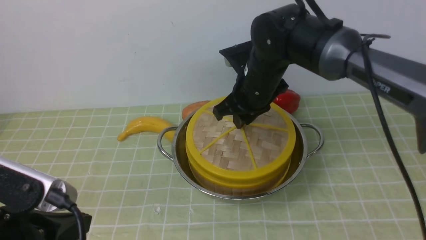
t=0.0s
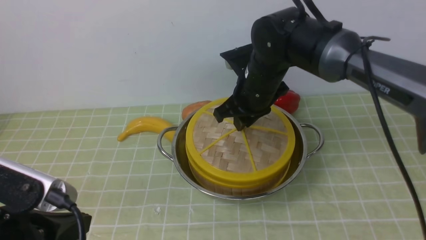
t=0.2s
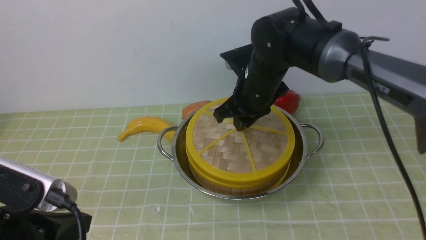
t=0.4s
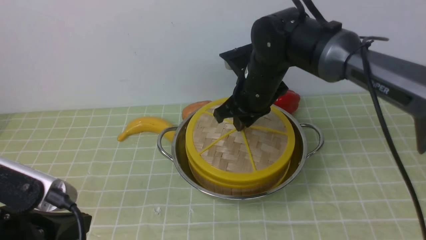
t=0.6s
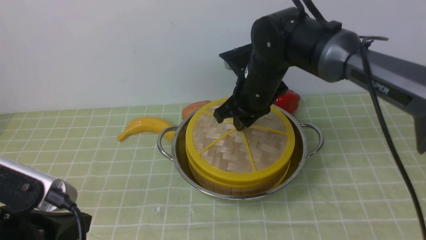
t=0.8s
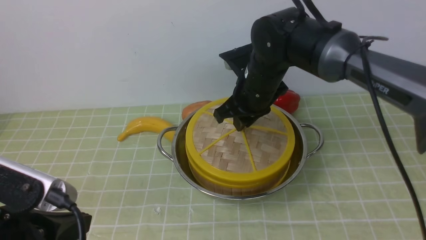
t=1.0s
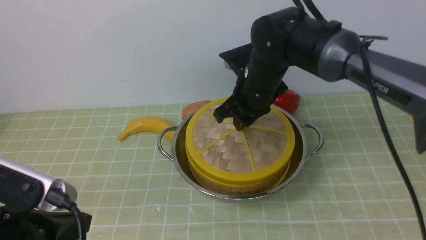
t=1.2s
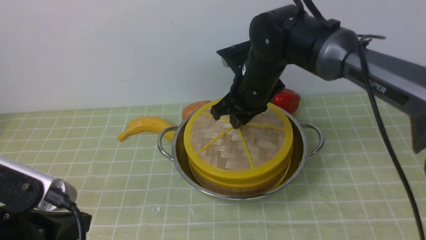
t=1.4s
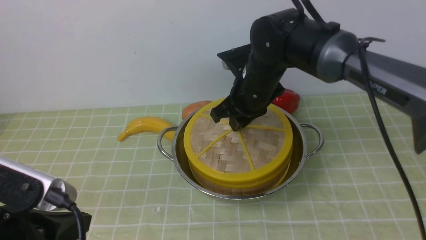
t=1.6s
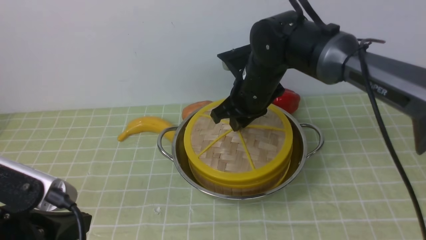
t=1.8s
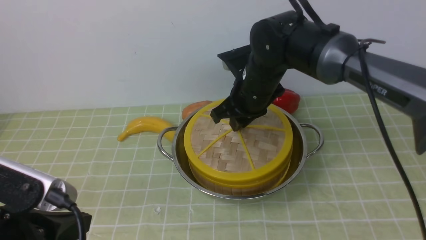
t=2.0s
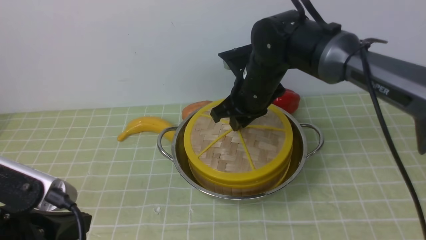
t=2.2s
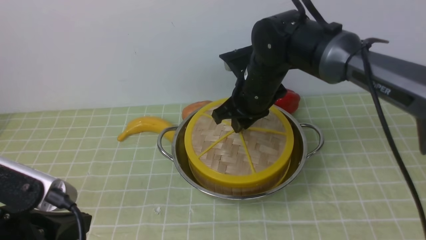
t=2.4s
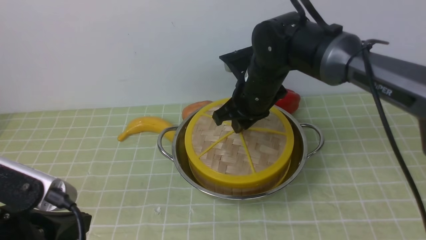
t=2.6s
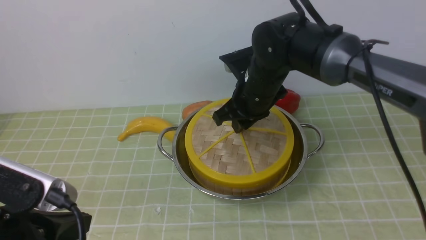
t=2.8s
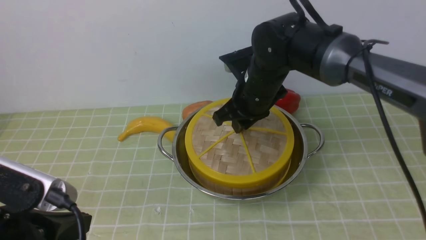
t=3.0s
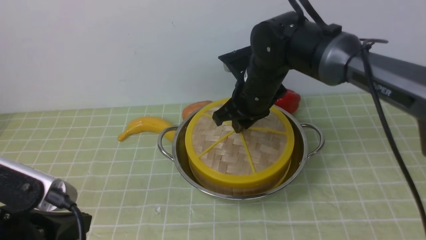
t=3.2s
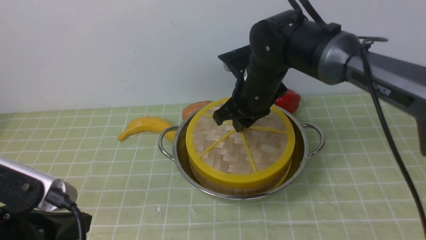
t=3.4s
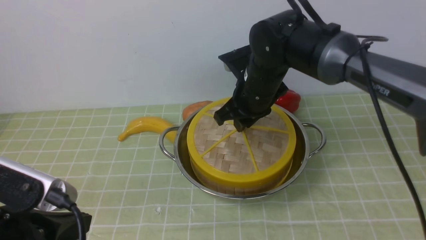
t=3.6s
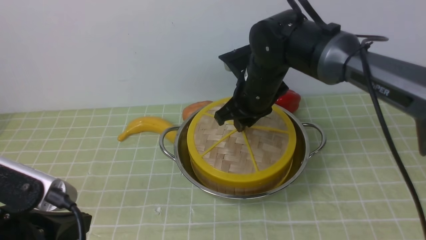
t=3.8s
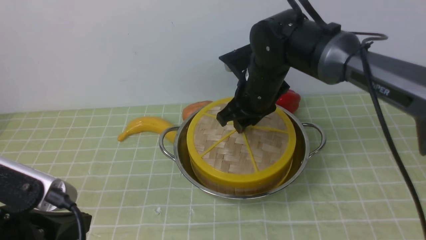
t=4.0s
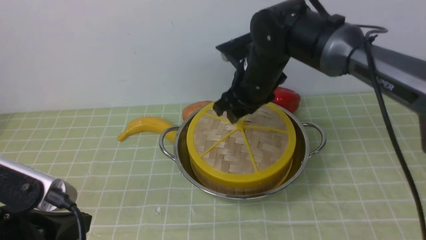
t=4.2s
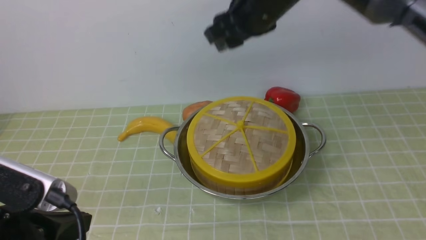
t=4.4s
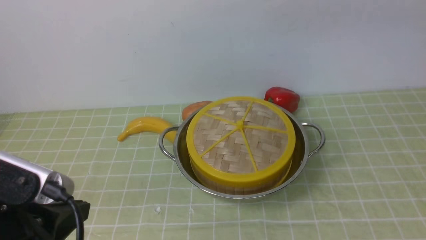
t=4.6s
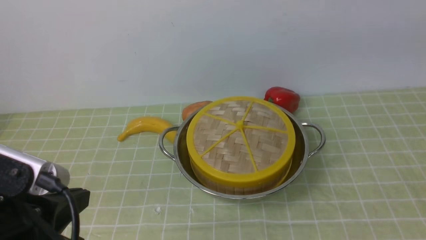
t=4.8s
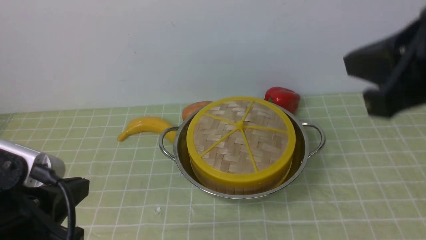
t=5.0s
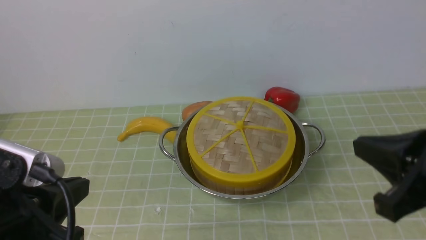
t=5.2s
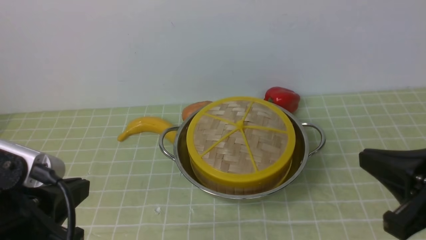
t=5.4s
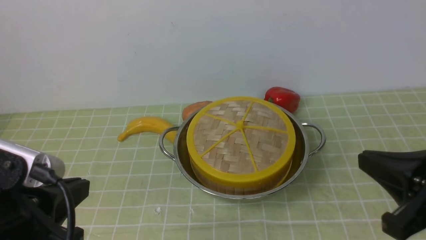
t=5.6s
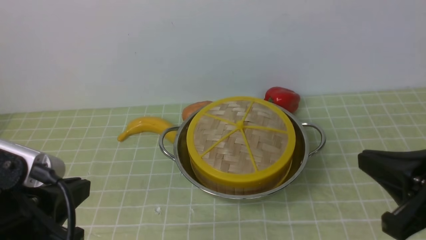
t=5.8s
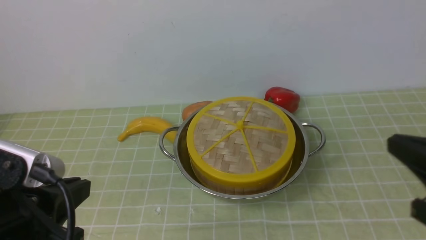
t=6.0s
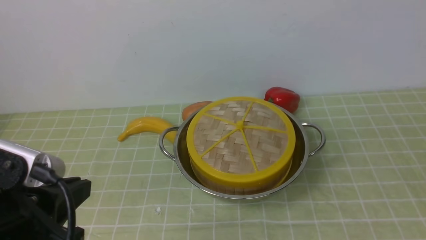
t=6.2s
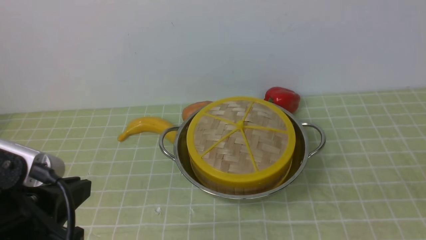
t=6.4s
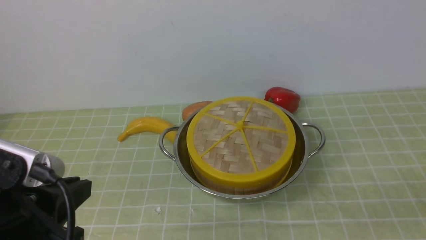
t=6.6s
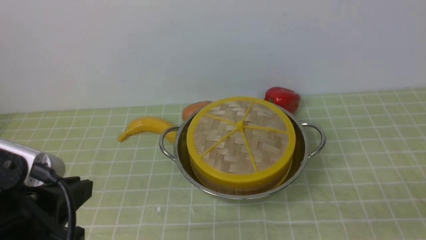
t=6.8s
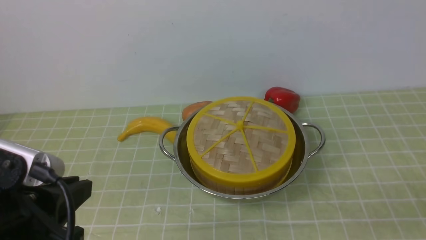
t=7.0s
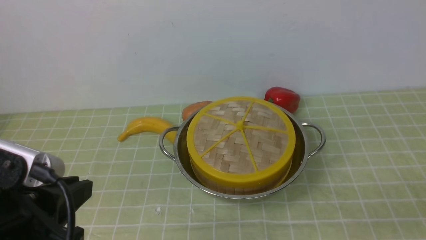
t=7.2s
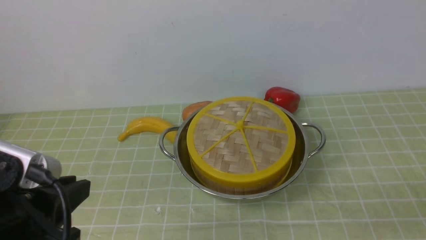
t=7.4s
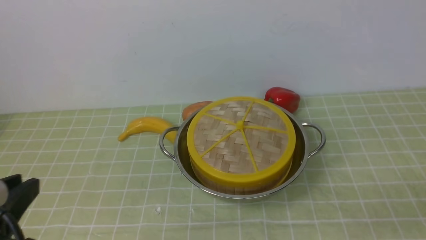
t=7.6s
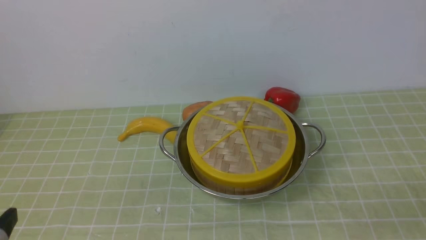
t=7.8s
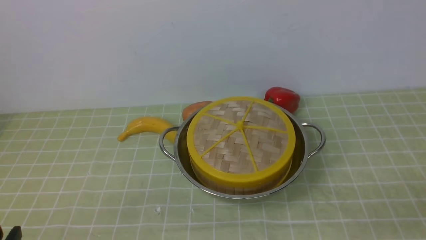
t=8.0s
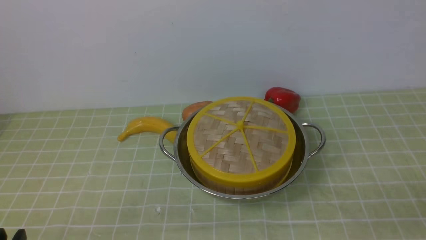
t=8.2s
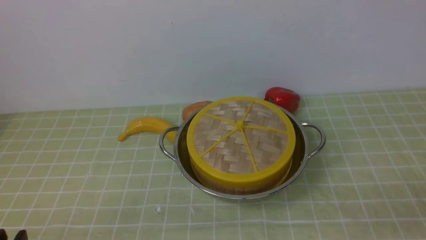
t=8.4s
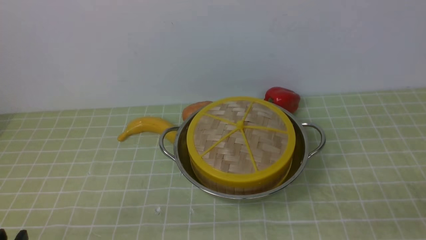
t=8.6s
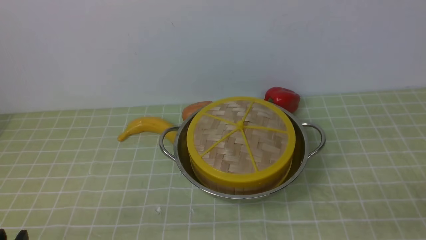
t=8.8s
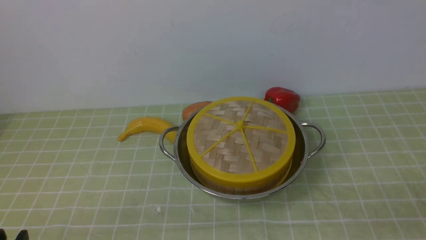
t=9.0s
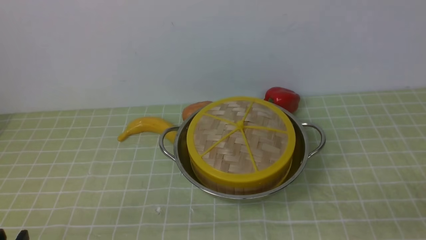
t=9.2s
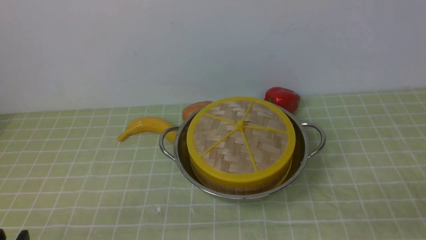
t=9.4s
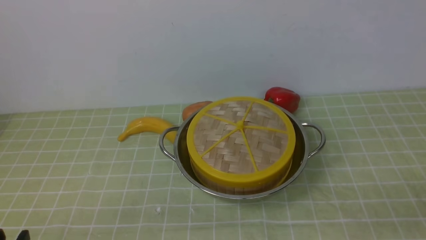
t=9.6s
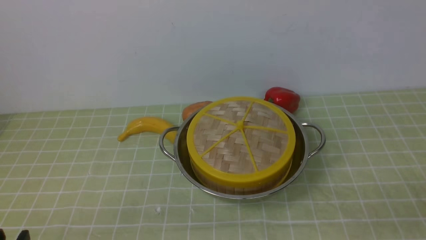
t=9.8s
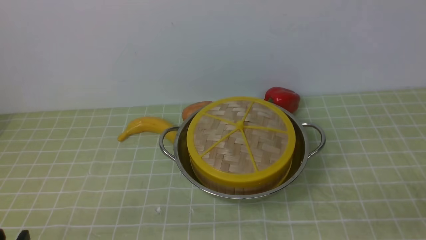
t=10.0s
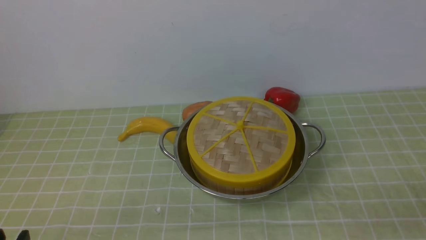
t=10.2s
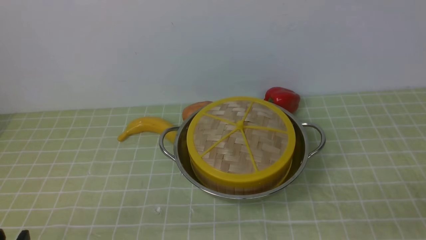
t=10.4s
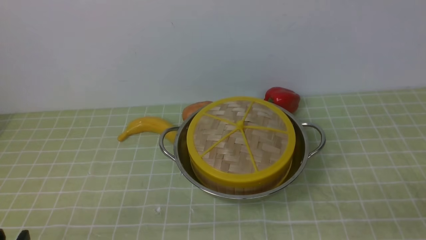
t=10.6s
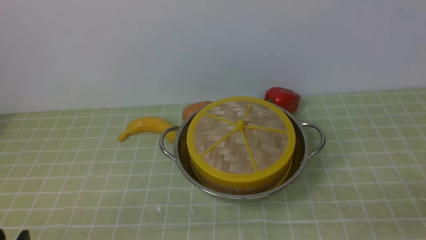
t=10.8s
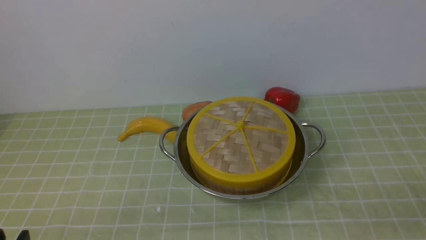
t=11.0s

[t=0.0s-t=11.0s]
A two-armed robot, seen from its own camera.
Task of the whole recording: place the steamer in the pot on the green tablecloth, and put the lid on the steamer.
Step, t=0.0s to t=4.6s: use the right arm to place the steamer lid on the steamer.
t=0.0s to t=3.2s: Neither gripper changes place.
t=3.2s to t=4.8s: The right gripper shifts some 30 cm upward and backward, and opens, then closes once more.
t=6.2s to t=7.8s: The left gripper ends up some 5 cm from where it was.
t=9.4s to t=11.0s: Both grippers stay put.

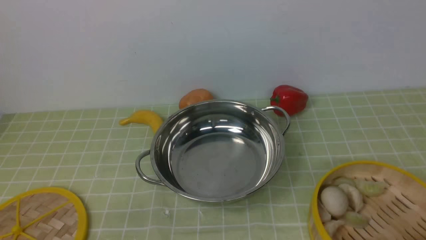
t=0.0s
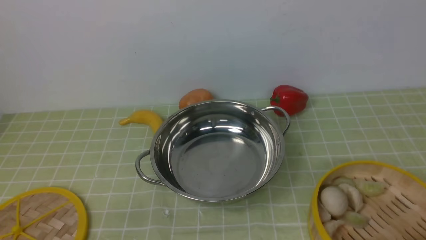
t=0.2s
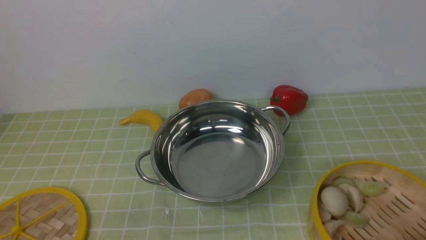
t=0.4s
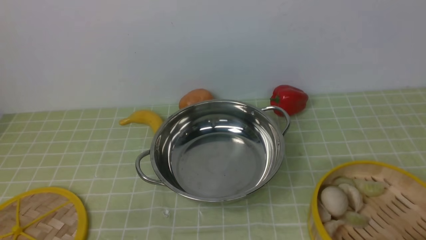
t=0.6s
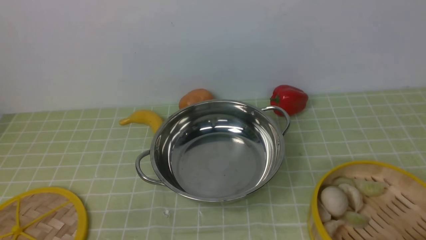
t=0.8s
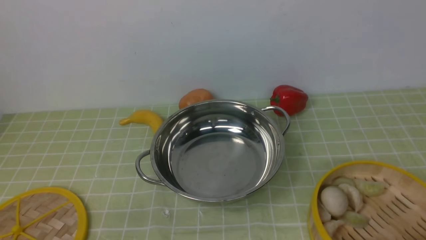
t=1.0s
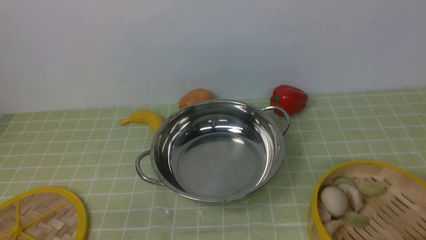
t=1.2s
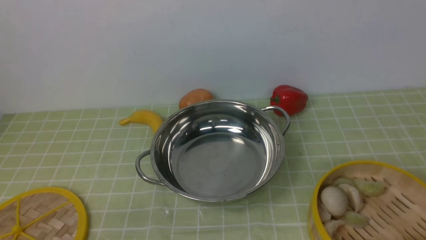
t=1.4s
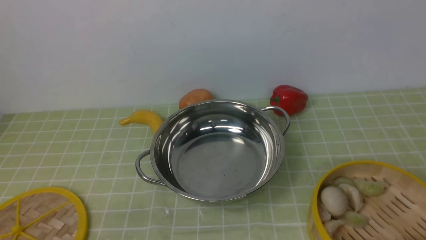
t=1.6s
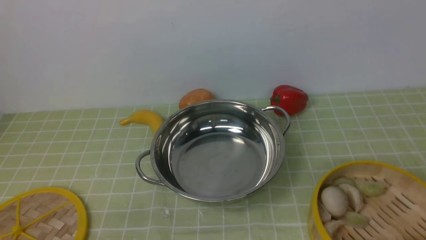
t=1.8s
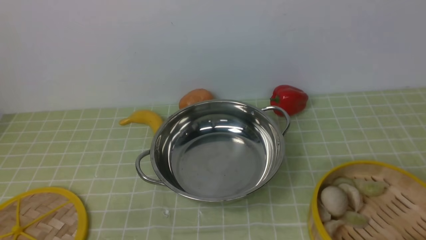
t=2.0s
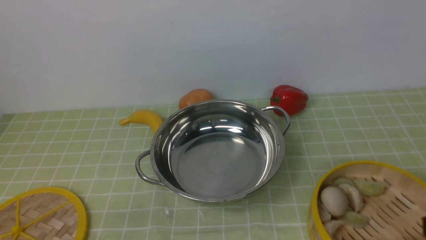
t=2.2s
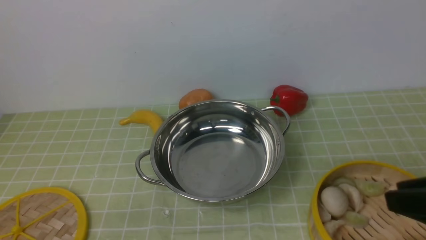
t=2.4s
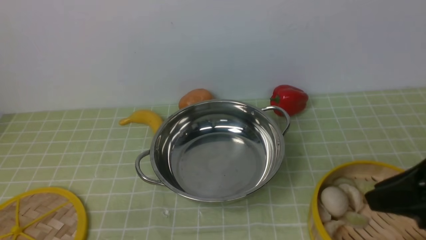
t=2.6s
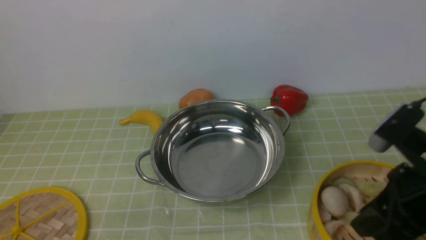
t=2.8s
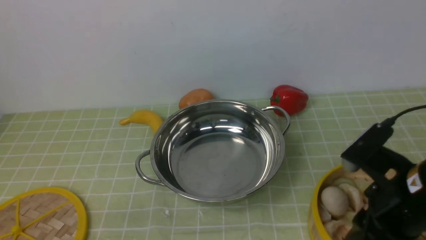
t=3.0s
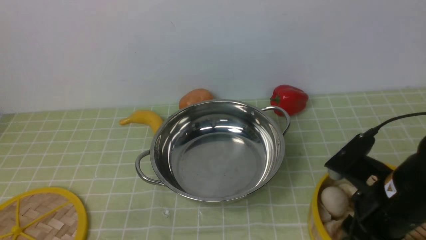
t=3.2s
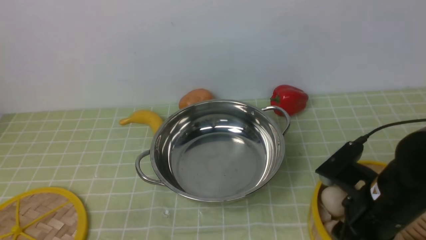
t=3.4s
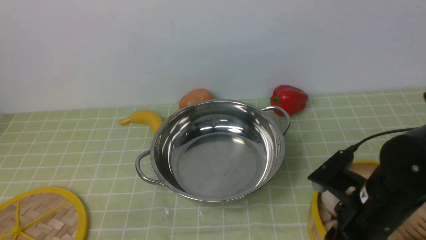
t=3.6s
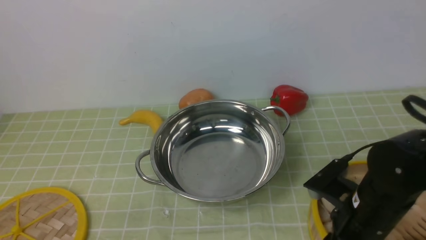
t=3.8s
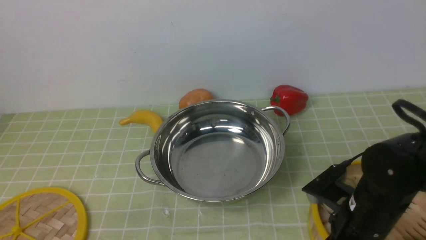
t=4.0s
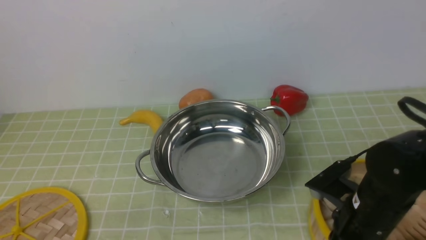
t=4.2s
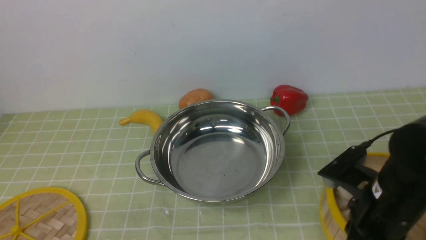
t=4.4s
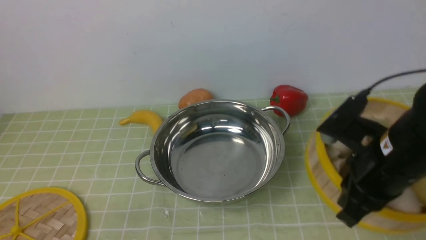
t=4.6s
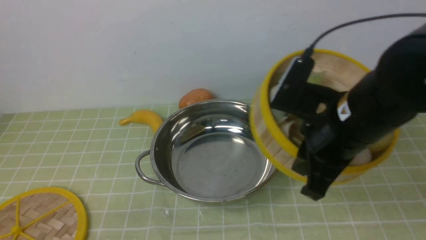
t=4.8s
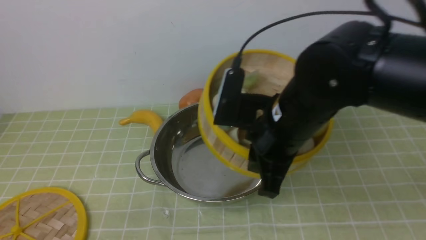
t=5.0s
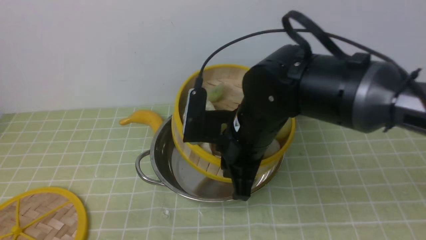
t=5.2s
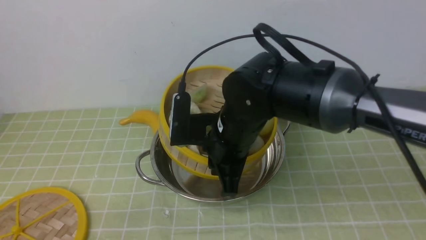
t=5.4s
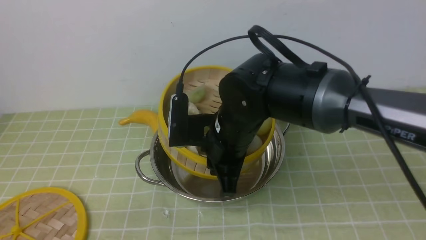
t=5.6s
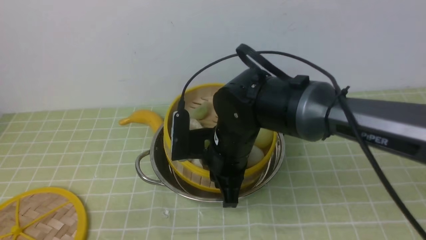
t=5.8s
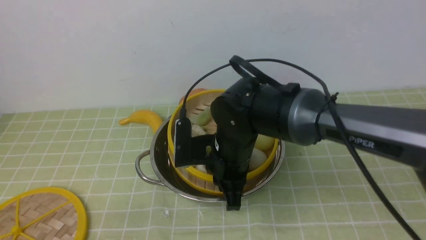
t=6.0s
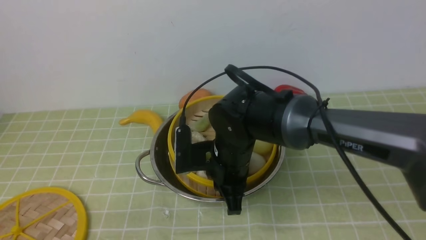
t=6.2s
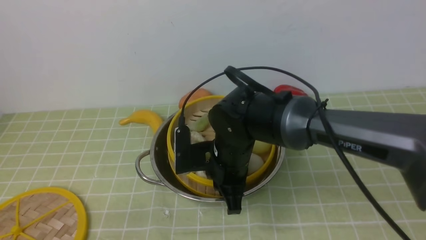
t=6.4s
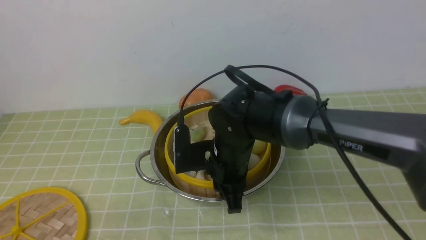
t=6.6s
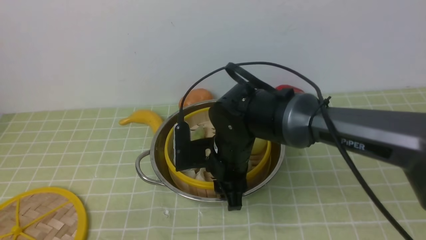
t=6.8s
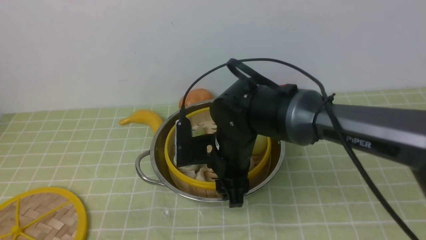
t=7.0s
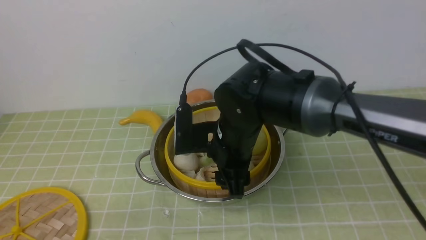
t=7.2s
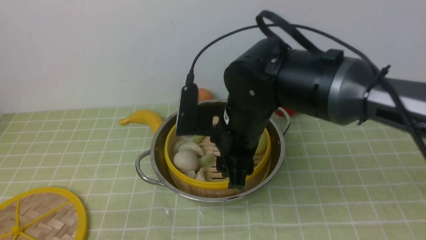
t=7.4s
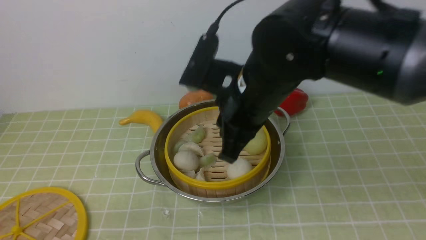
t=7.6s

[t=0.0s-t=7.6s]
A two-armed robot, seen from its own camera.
Task of the whole recording: place the steamer in the pot on the green tablecloth, and put the lid on the steamer.
Step, t=0.0s to t=4.8s: use the right arm to lift the steamer closest to it.
Step, t=5.0s to t=7.4s: use the right arm to put the steamer into the iron steamer pot in the middle.
t=1.6s to t=3.0s: The right gripper travels forward and to the left by roughly 15 cm.
t=3.0s to t=4.6s: The right gripper goes downward and returns, approximately 10 cm each way, and closes.
t=4.6s to t=6.0s: The right gripper goes approximately 20 cm to the left and forward.
t=6.0s to t=7.6s: The right gripper goes some 10 cm upward, and opens its fingers.
